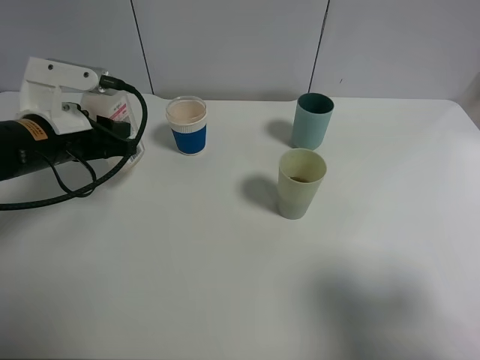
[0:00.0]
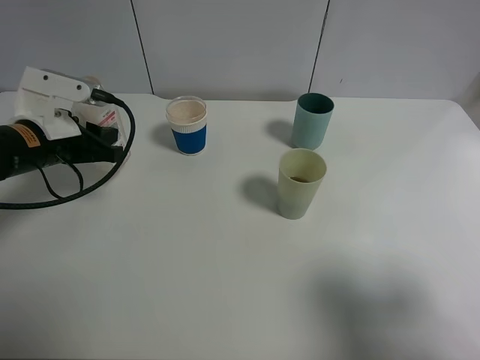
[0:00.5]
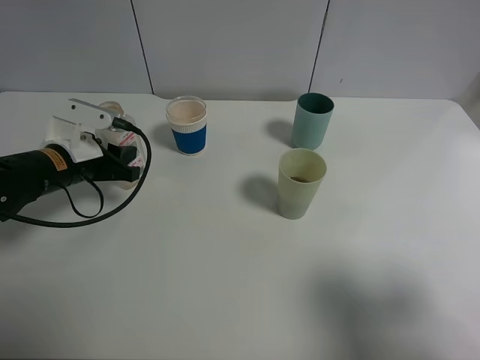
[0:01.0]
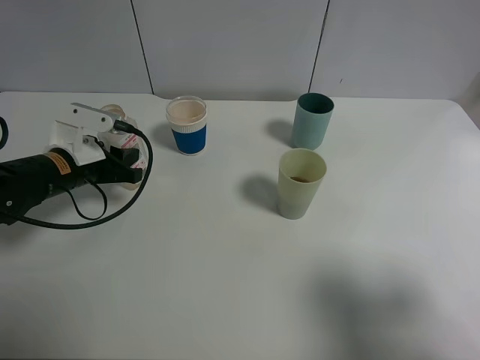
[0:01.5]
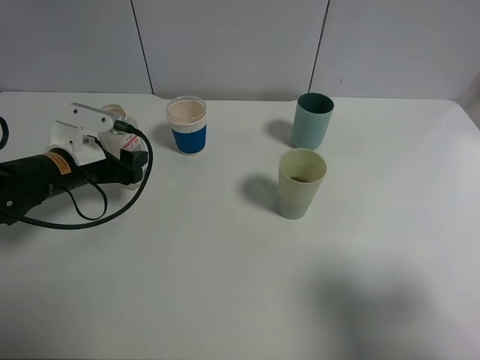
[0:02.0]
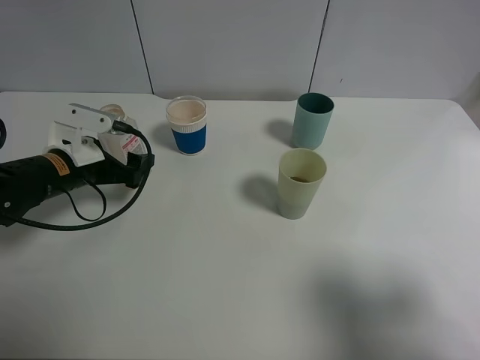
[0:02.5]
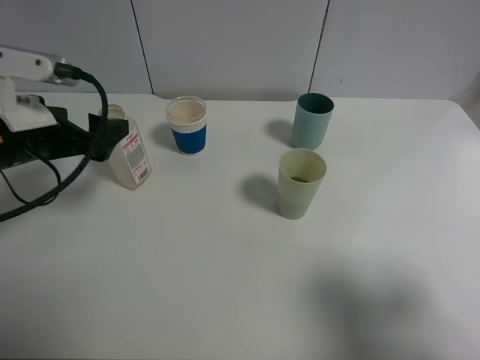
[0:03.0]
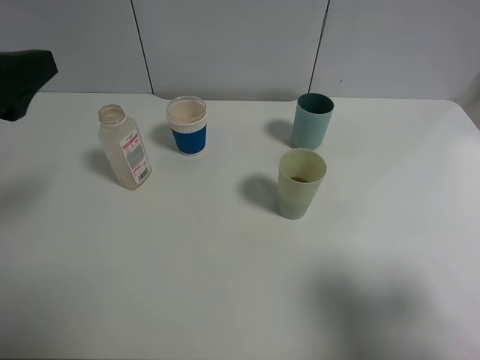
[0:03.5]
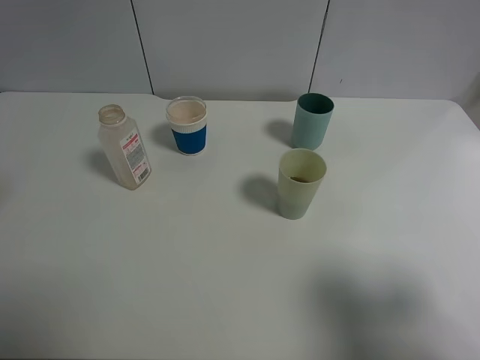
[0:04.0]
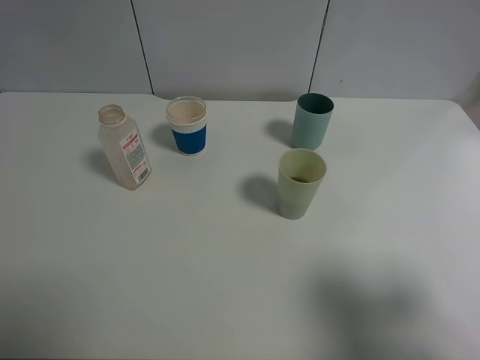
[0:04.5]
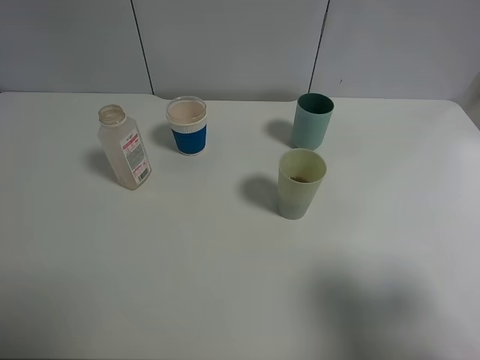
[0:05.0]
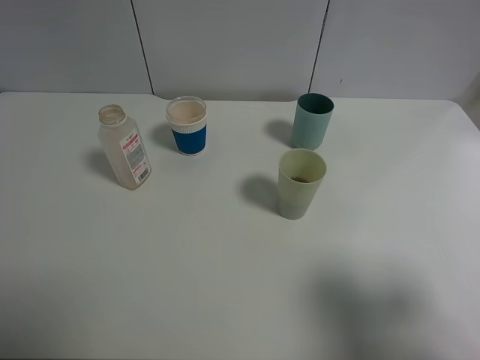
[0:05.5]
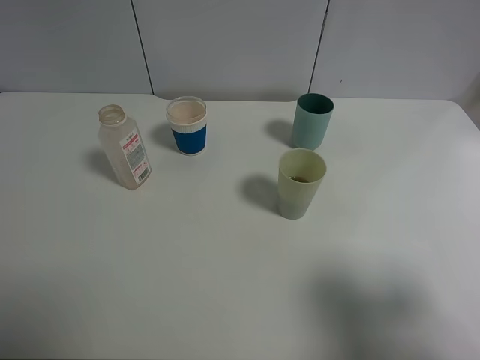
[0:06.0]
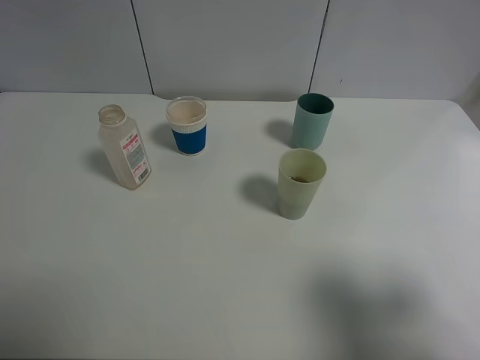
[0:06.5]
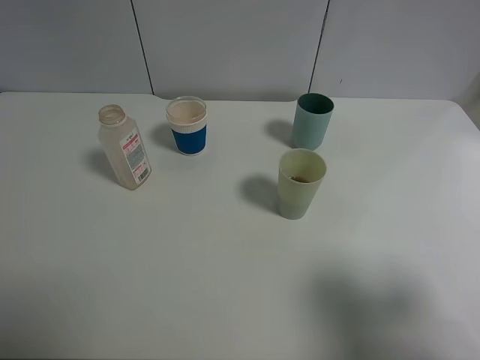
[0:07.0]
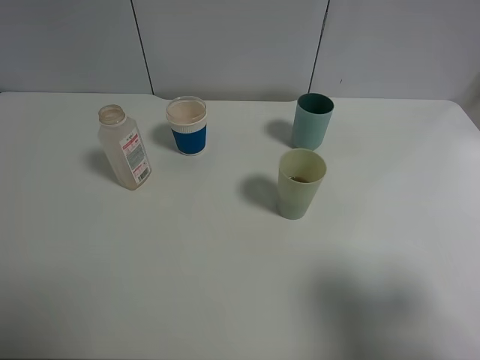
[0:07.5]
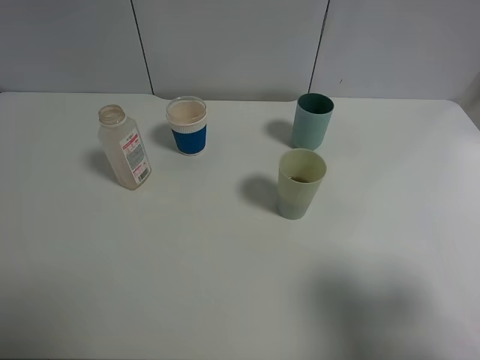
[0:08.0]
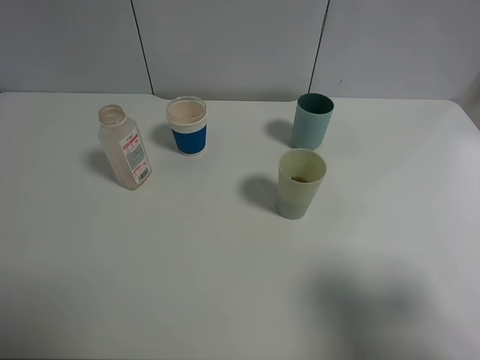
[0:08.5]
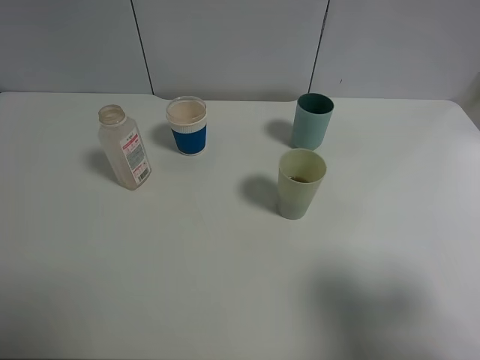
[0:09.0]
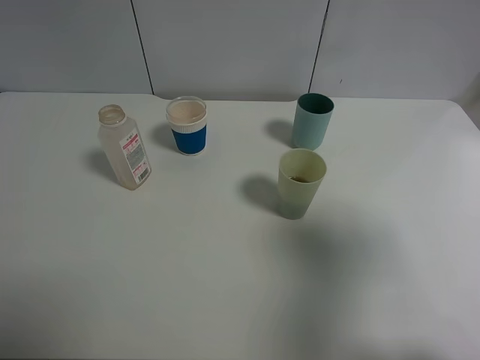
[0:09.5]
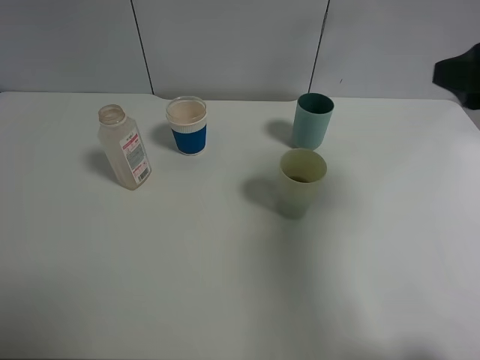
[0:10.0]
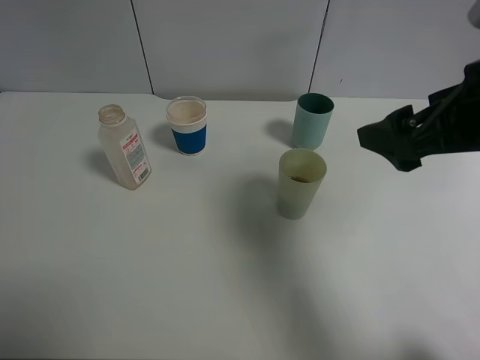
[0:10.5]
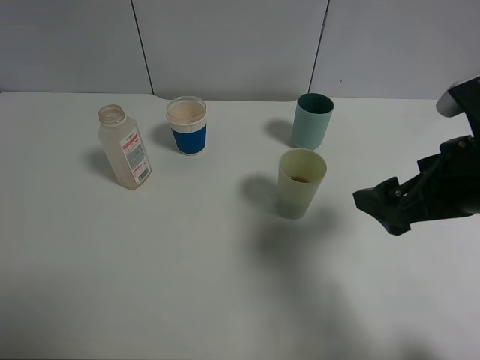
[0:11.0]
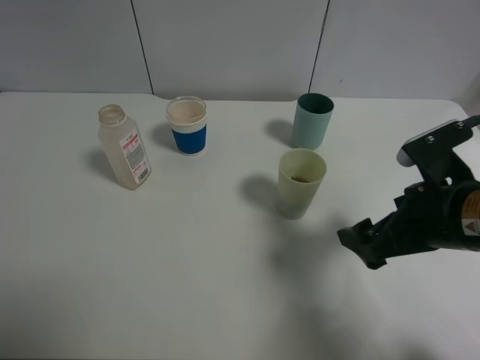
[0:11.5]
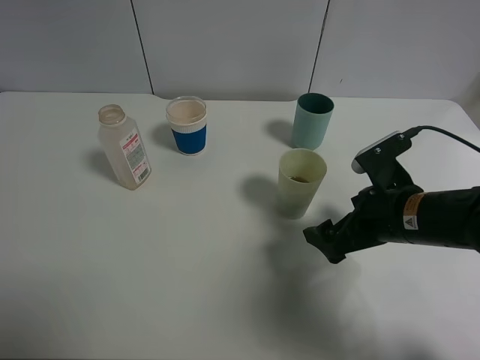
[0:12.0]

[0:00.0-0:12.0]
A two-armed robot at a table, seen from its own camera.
Task of the whole recording: use a clamp to hold the bottle of the drink, pour the beverage into a random cup, then clamp the cup containing the drink and pour the drink into another random cup.
Step, 0:00.0 to 0:02.5: Place the drink bottle on the table with left gripper.
0:00.0 to 0:02.0: The left gripper heads downward, covering some 5 cm, and opens up.
0:02.0 to 0:04.0: The left gripper travels upward and backward by roughly 30 cm.
0:06.0 to 0:08.0: The two grippers keep their place.
0:08.0 to 0:10.0: The right gripper shifts some 15 cm forward.
0:10.0 to 0:12.0: The right gripper is displaced downward and to the left by approximately 20 cm.

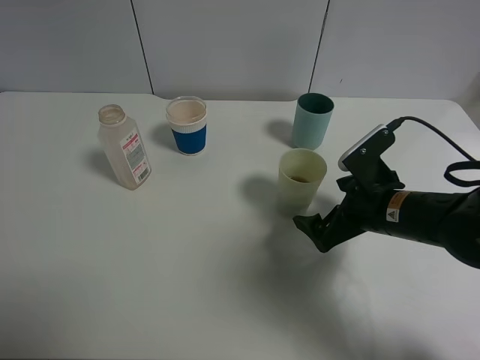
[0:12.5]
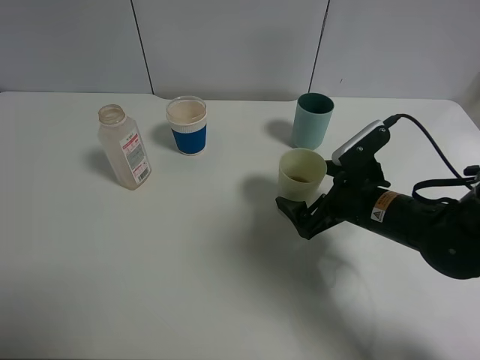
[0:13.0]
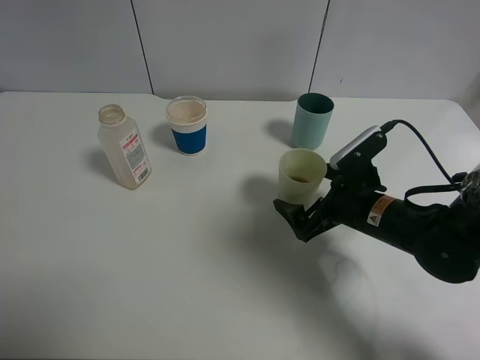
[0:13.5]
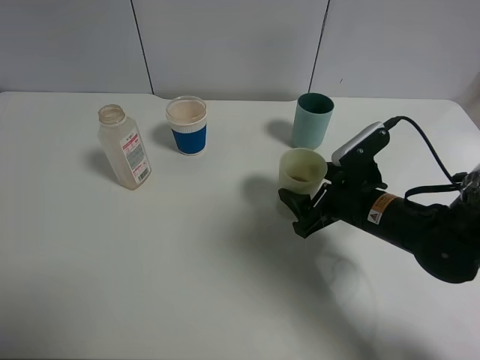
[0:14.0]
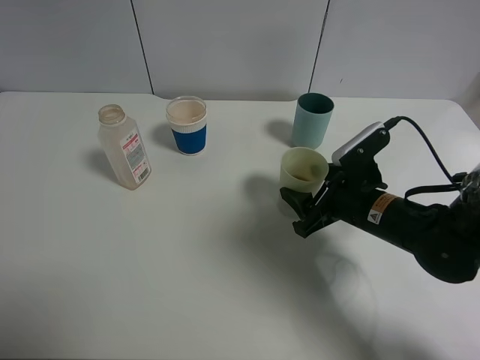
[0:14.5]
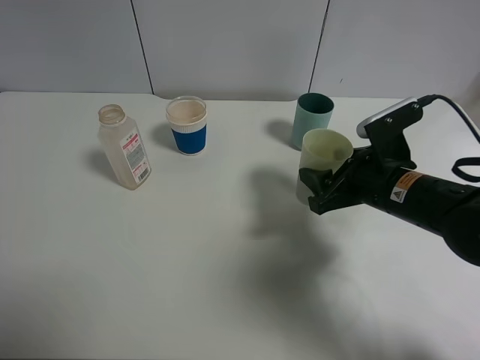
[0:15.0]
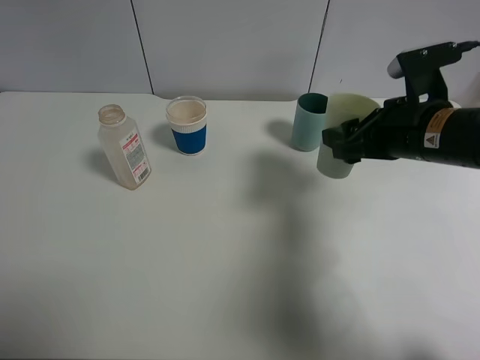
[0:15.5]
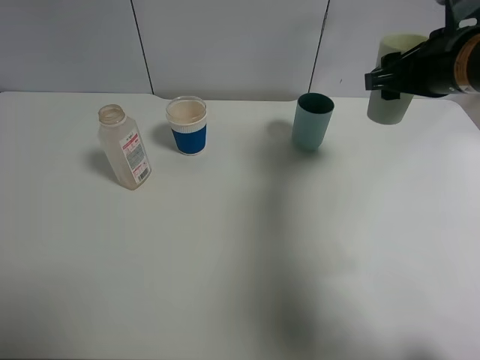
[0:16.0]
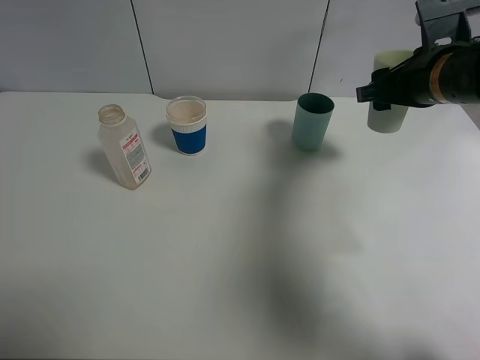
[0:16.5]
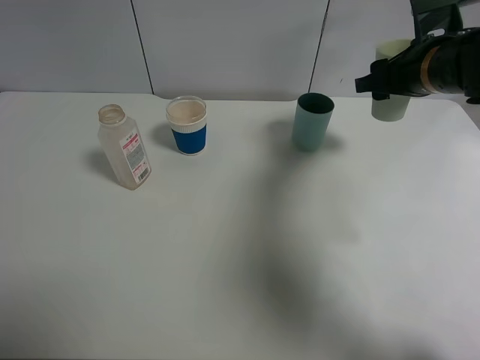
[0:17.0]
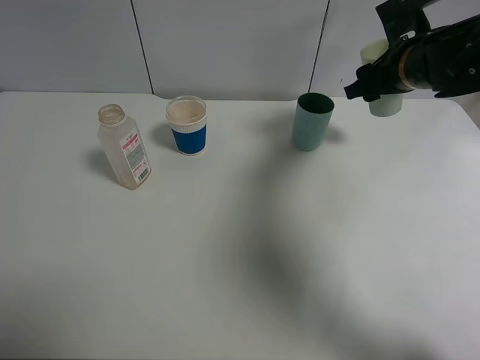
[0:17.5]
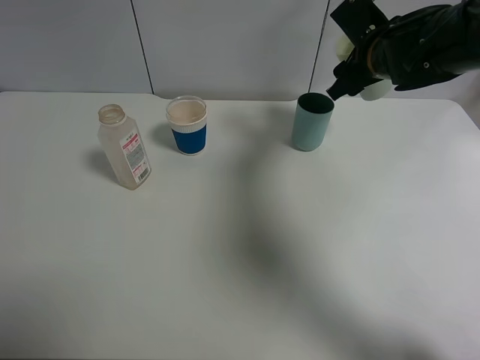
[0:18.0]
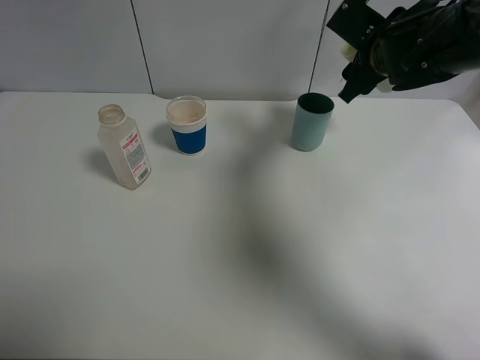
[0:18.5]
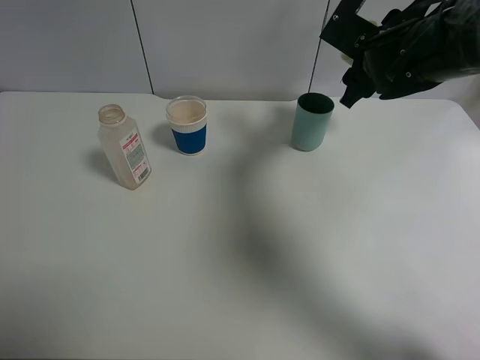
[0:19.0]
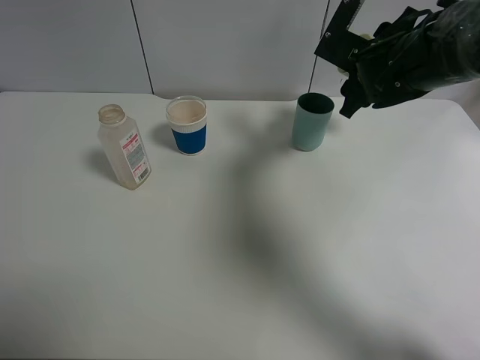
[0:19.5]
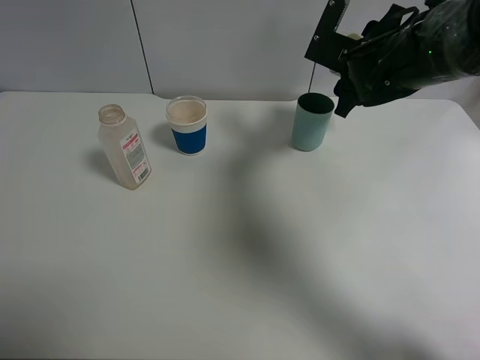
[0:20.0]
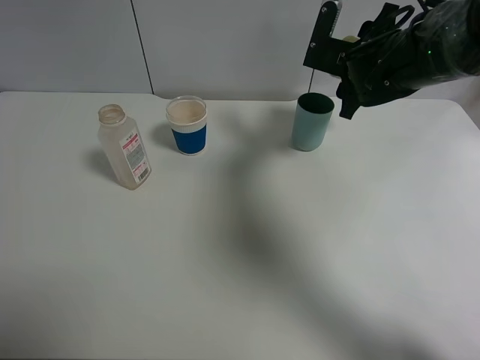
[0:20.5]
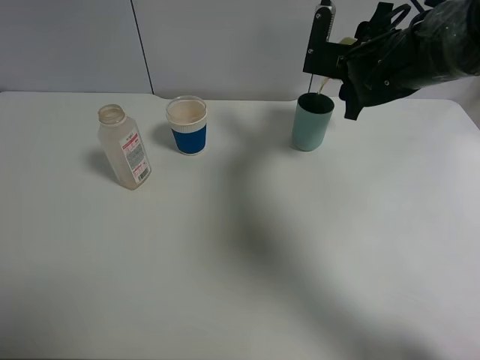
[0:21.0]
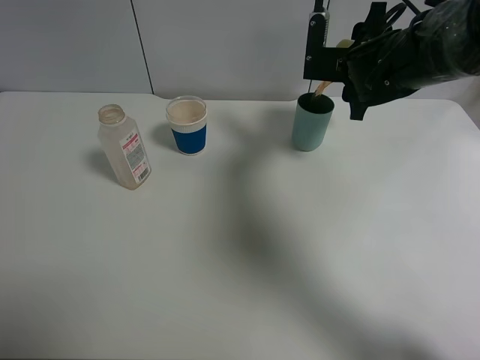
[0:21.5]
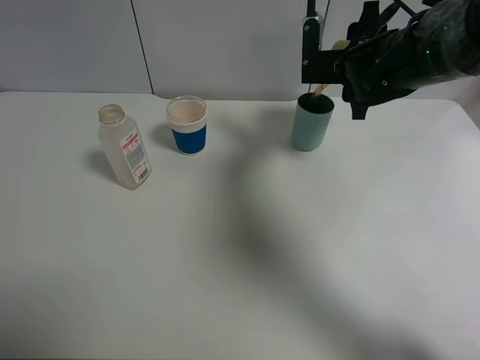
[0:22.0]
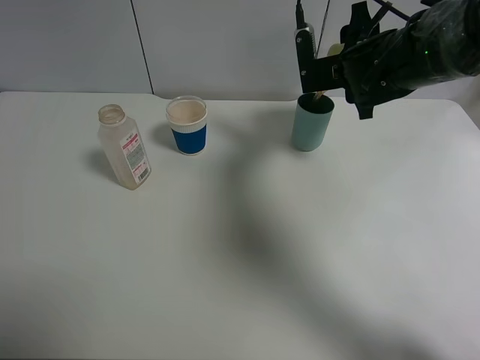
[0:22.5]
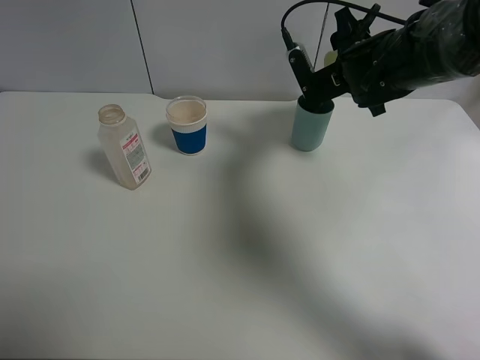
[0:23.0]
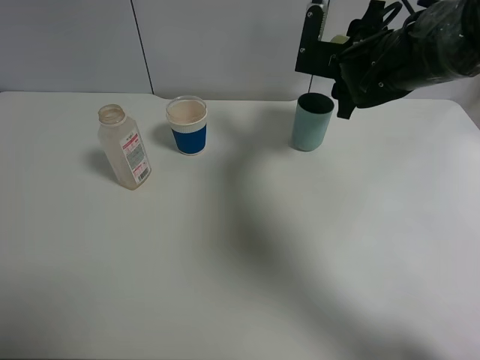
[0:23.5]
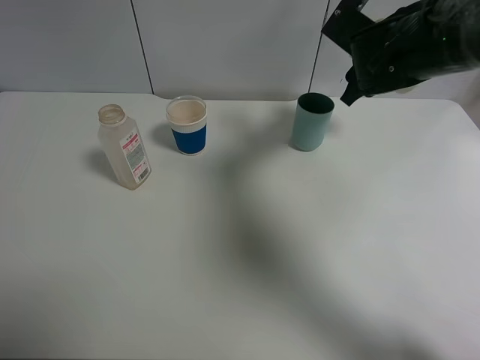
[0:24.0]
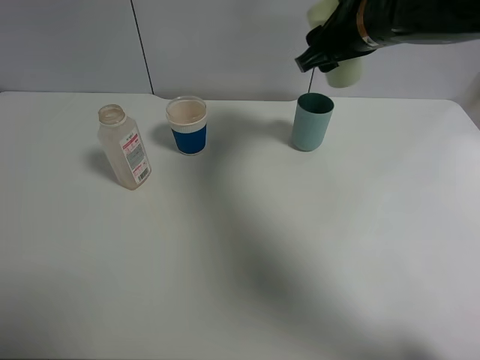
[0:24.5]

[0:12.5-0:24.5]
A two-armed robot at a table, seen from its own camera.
Task of the whole recording: use a clamp to hold the bottle of the drink, pour the beverage into a random cup, then clamp the cup containing the drink and pour the drink into another random cup.
Step, 0:12.5 to 0:15.0: Pick up the green plastic cup bottle with right gripper.
Step, 0:15.5 to 0:23.5: Pour the drink into the blue plastic cup with right gripper.
0:12.5 to 0:14.5: The right gripper closes.
0:14.5 to 0:16.5: The right gripper heads upward and forward, covering some 15 cm.
0:16.5 to 0:18.5: The right gripper goes about 5 cm forward.
0:22.5 to 0:24.5: The right gripper is displaced upward and backward by roughly 10 cm.

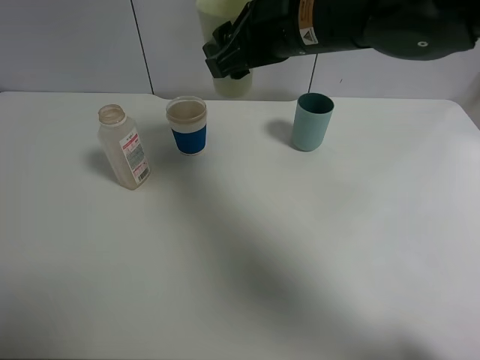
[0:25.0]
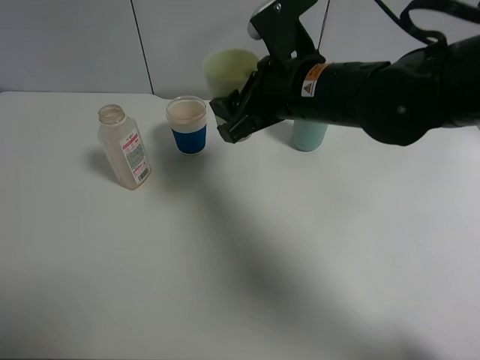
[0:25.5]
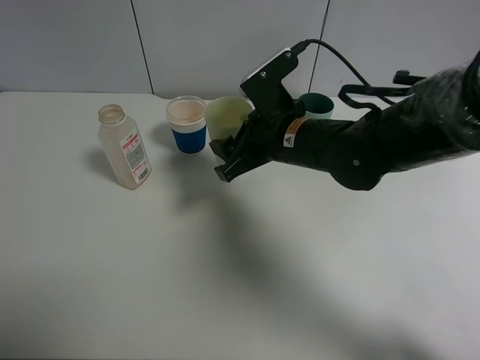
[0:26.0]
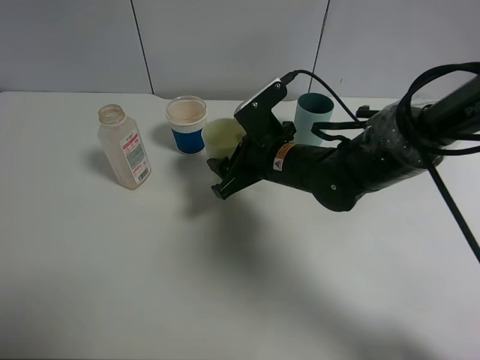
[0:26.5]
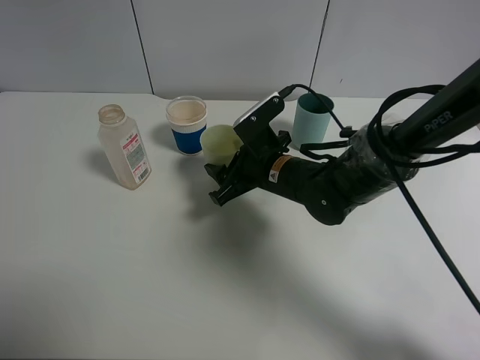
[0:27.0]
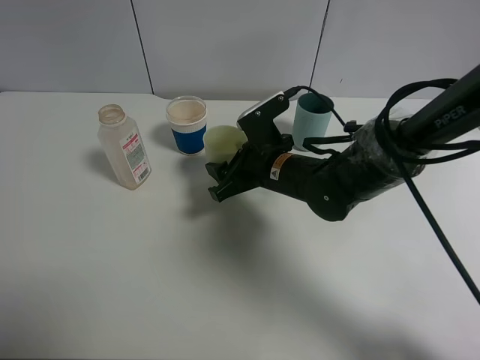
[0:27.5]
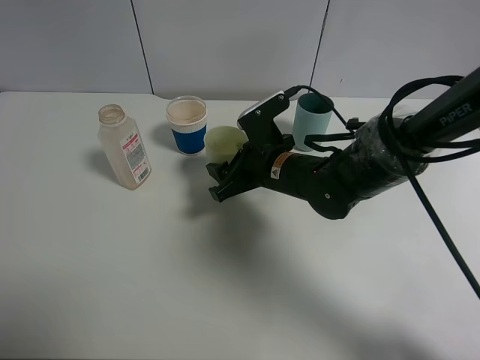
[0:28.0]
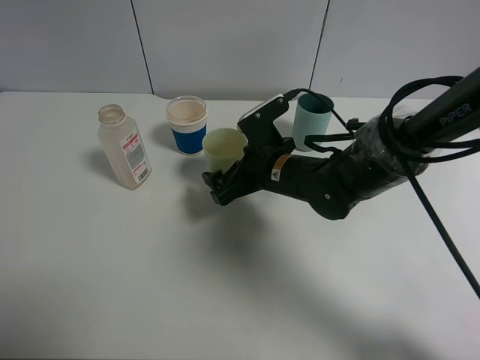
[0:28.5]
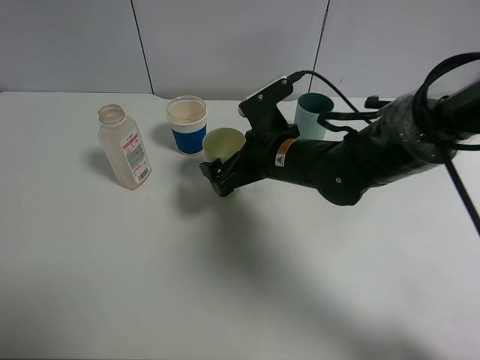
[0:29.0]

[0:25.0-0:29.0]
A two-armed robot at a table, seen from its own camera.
Task of the whole recording: use a clamp to hold the bottle of the drink, pour the beverage into a random cup, then clamp the cup containing the drink and pour the drink into another random cup.
0:25.0 to 0:27.0: The right gripper travels downward by approximately 20 cm.
0:27.0 to 0:29.0: The right gripper opens.
